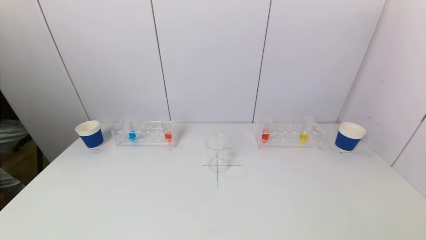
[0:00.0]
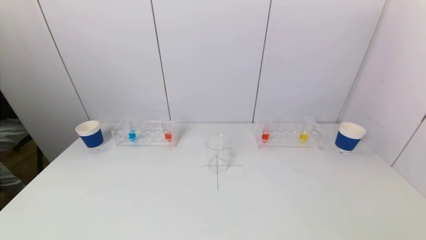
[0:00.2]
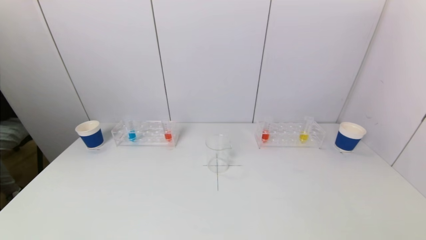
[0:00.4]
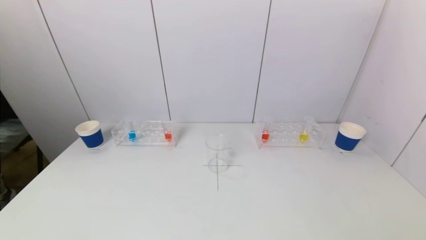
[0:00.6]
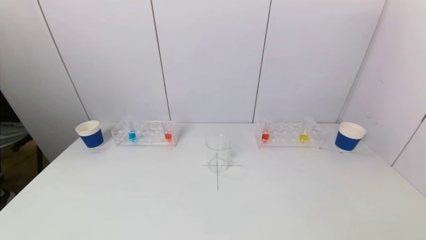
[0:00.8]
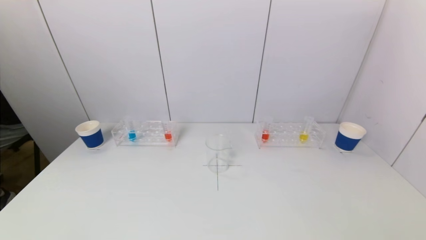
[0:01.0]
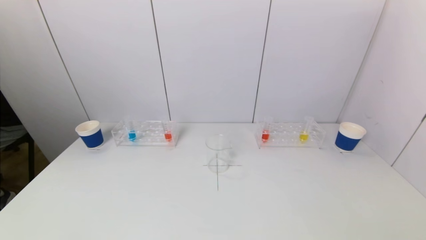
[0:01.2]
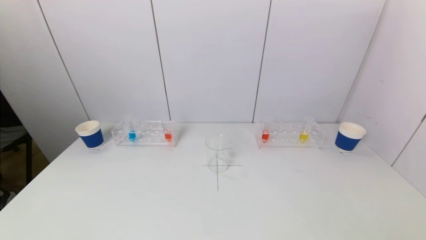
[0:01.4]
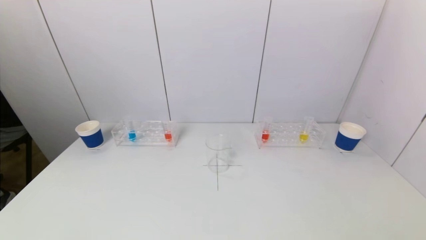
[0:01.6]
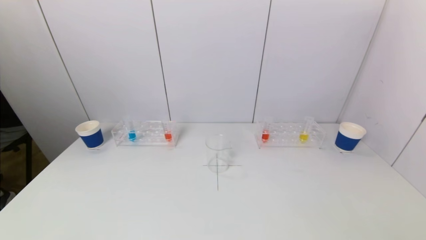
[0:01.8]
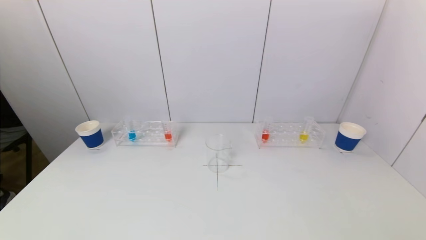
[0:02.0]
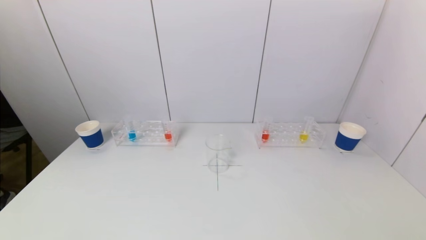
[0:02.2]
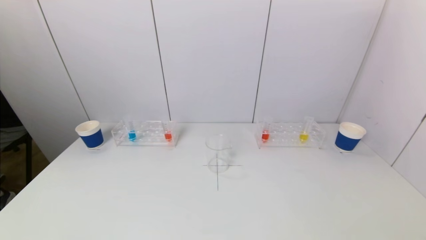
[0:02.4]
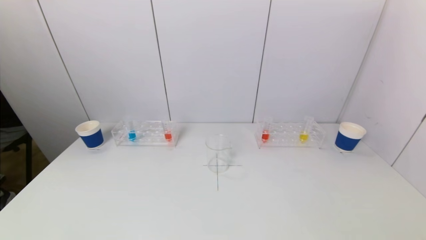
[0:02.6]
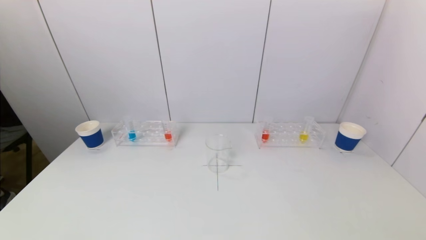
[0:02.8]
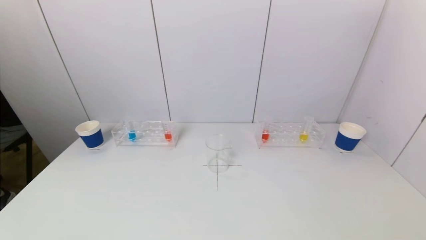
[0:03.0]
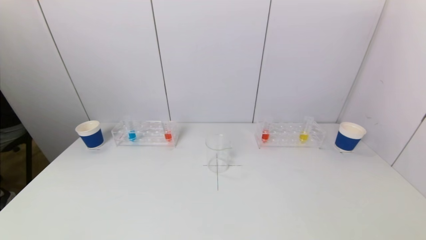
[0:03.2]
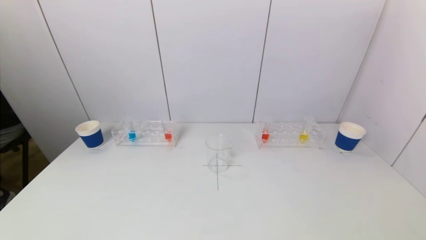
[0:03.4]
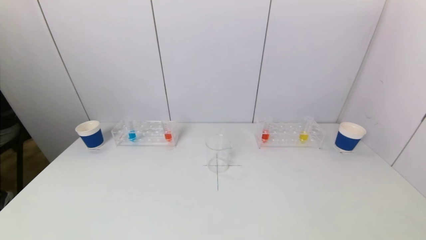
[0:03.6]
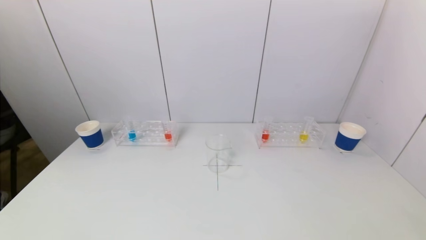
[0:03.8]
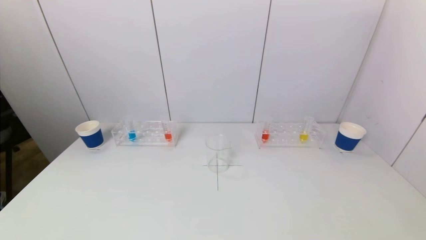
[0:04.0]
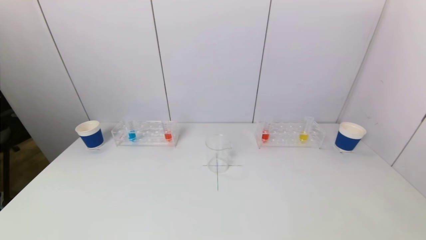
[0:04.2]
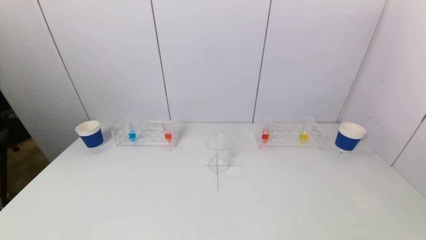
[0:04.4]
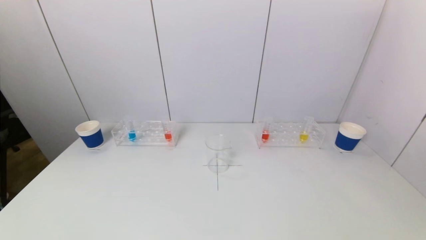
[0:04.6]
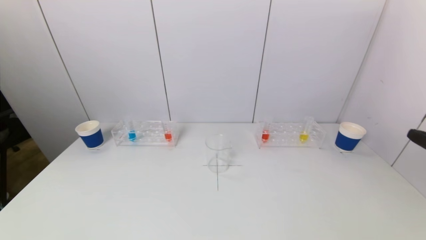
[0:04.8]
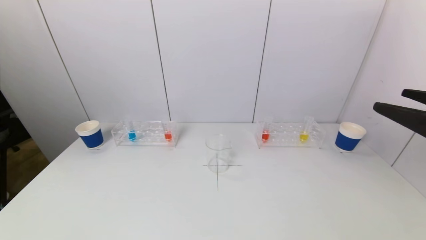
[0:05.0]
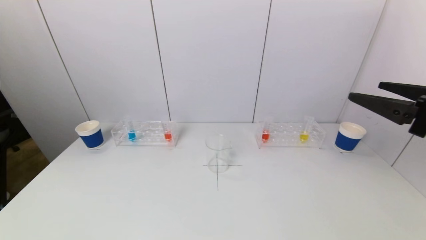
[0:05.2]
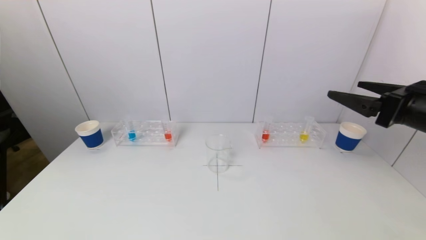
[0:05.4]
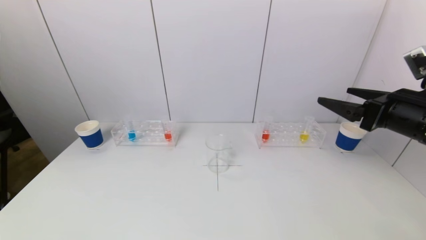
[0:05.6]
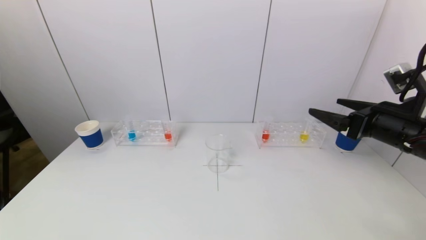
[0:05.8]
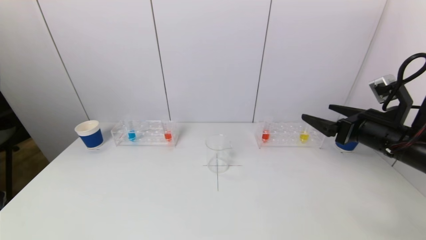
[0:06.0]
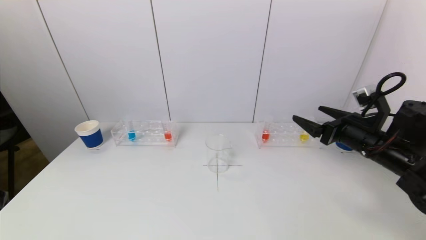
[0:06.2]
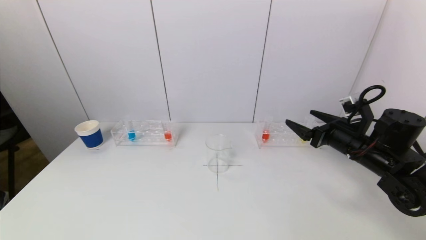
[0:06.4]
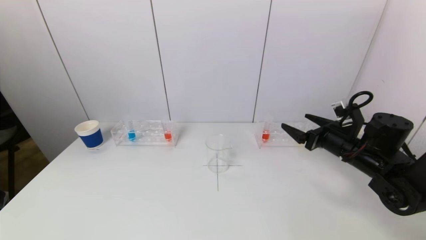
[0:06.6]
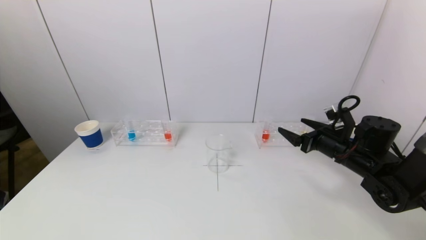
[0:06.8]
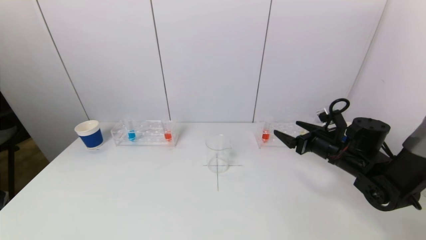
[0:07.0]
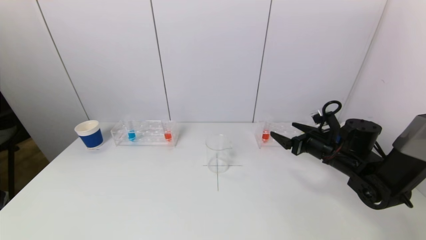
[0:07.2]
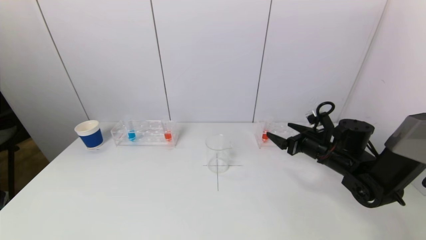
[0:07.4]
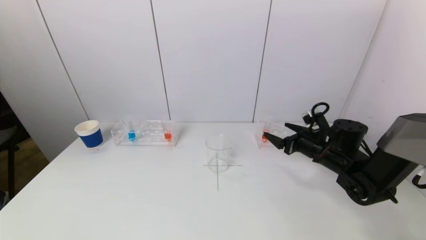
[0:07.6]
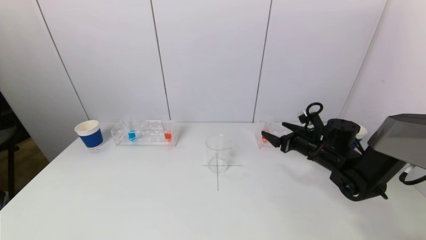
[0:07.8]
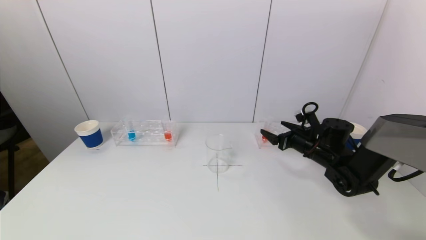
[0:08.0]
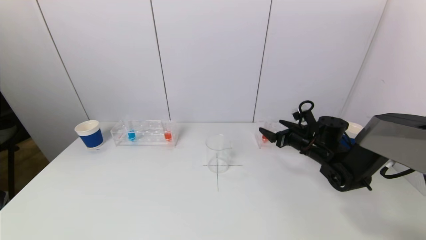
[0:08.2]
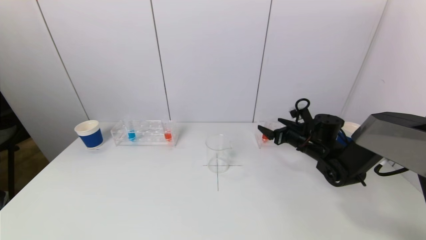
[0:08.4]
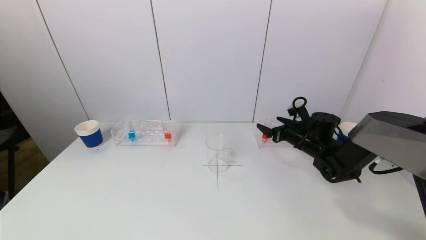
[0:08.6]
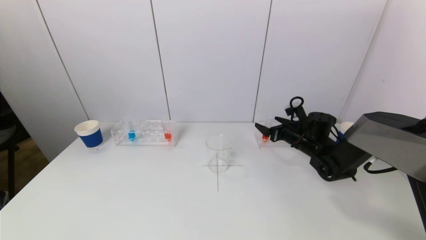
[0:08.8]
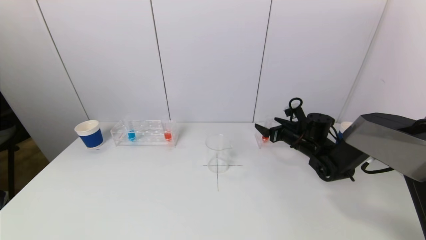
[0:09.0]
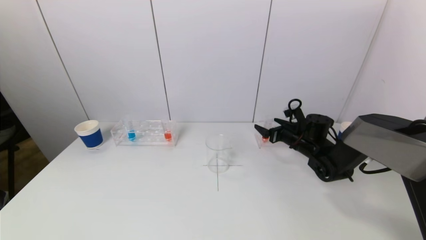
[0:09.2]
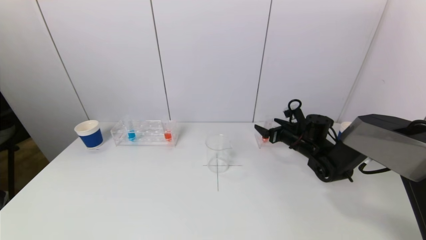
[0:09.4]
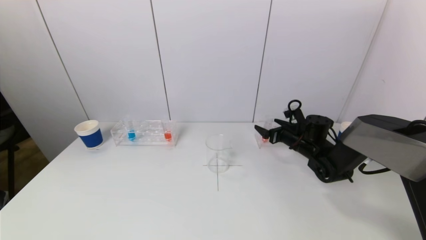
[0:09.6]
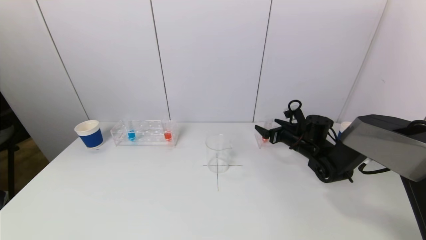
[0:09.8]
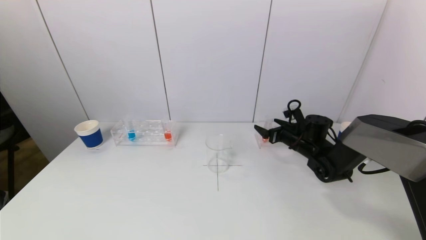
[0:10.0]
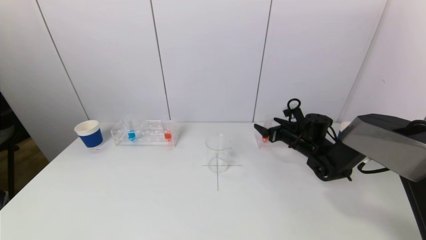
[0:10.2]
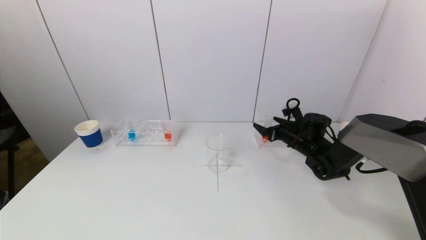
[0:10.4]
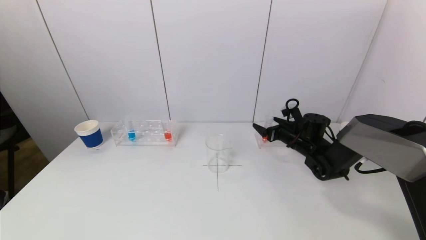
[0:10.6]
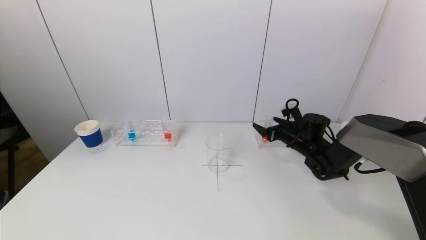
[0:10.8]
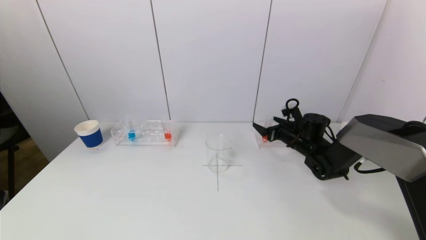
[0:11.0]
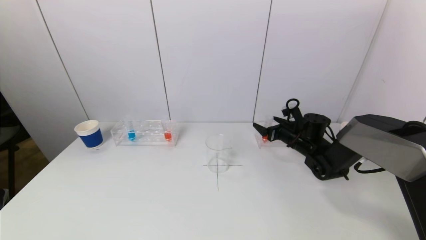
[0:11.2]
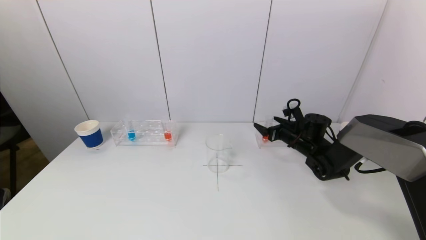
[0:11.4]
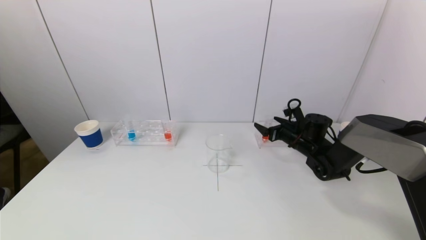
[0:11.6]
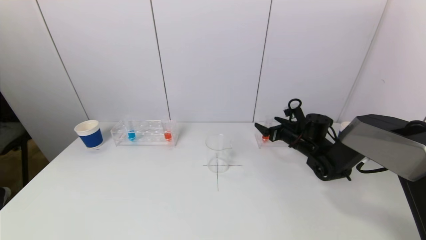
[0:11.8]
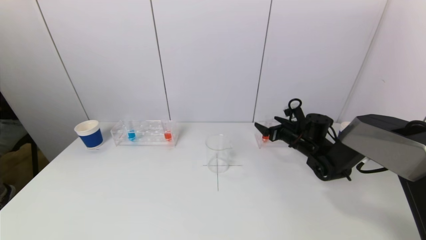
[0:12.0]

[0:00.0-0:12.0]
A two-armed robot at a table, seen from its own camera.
Task of the whole recording: pick up a test tube with pigment on left test tube rack and a test tube with pigment on right test tube rack by grippers and pour them into the beaker.
0:00.0 to 0:01.6: The two grippers keep their place.
0:04.4 to 0:06.0: The right gripper goes about 25 cm forward.
0:06.0 to 0:07.6: The right gripper shifts approximately 15 cm downward and forward.
0:07.6 to 0:09.0: The right gripper travels forward by some 5 cm.
0:09.0 to 0:12.0: Both grippers stay about where they are.

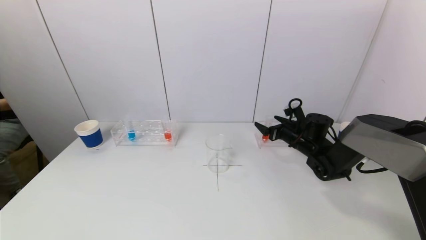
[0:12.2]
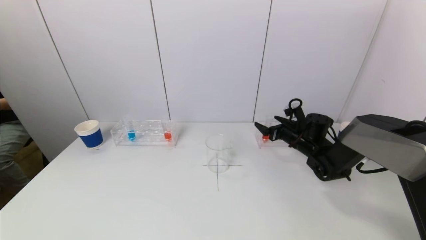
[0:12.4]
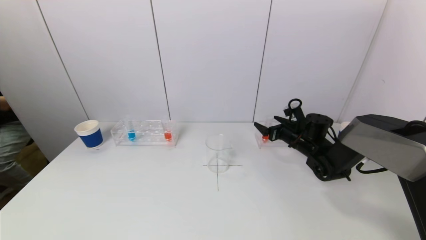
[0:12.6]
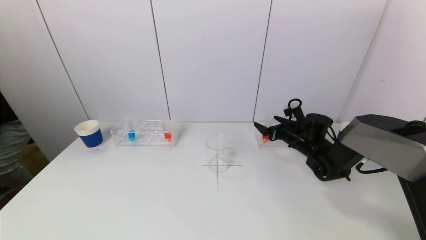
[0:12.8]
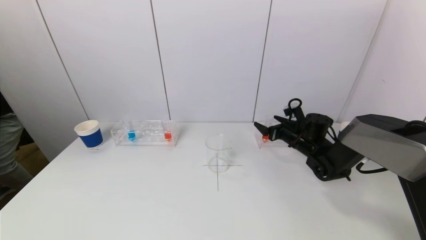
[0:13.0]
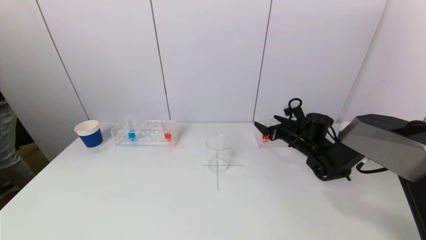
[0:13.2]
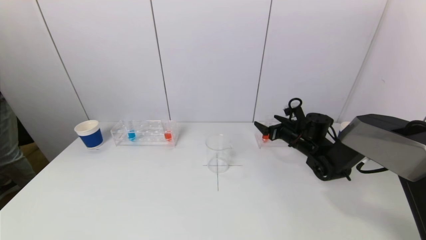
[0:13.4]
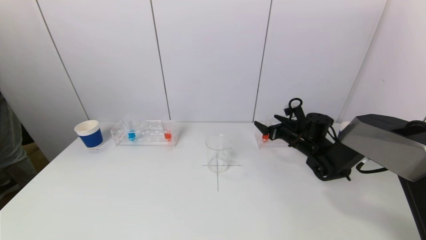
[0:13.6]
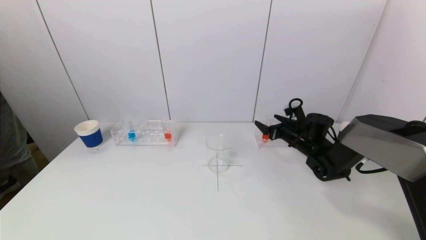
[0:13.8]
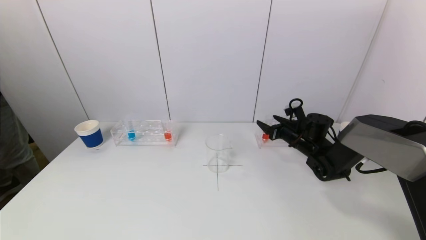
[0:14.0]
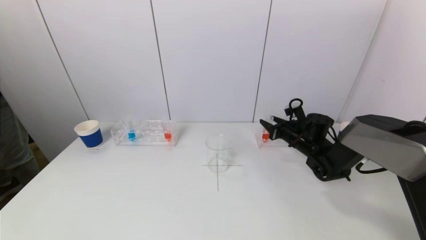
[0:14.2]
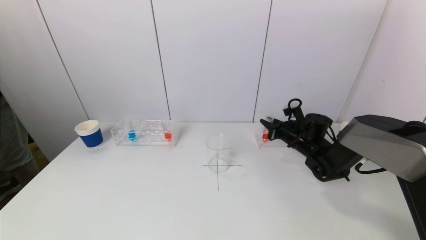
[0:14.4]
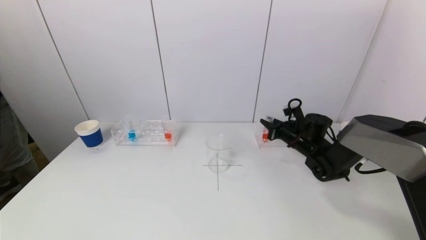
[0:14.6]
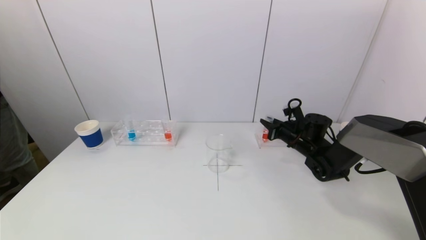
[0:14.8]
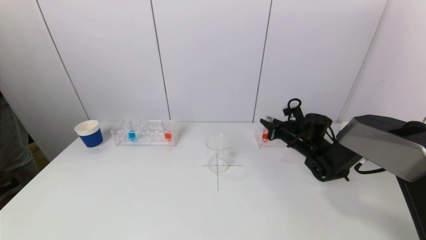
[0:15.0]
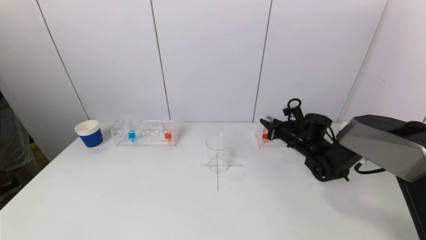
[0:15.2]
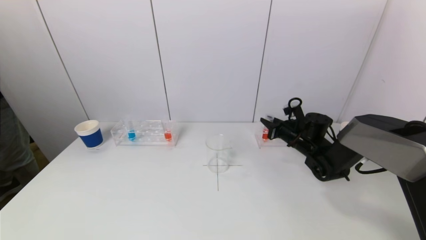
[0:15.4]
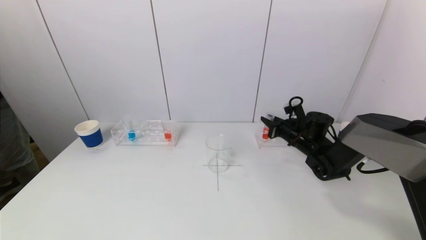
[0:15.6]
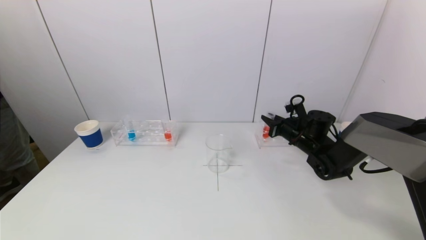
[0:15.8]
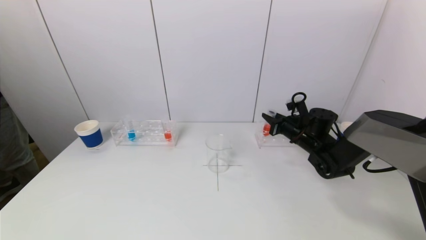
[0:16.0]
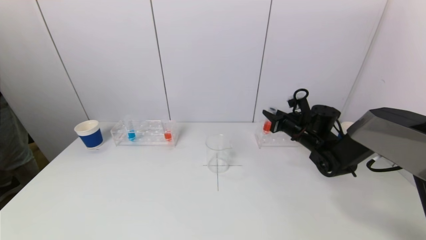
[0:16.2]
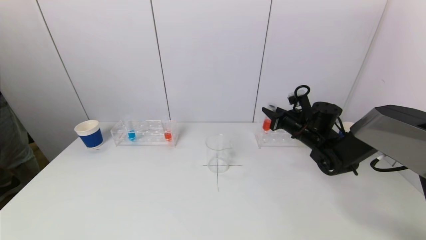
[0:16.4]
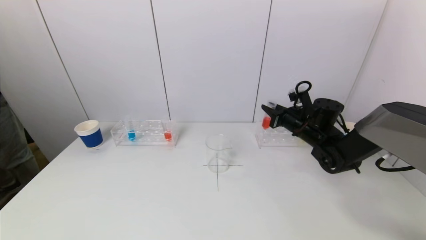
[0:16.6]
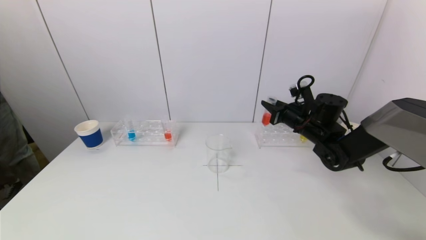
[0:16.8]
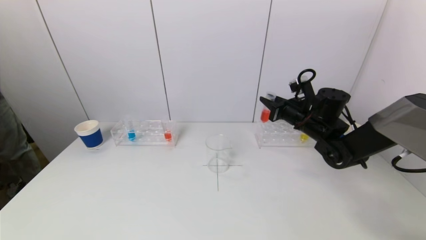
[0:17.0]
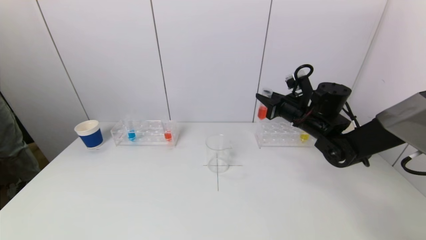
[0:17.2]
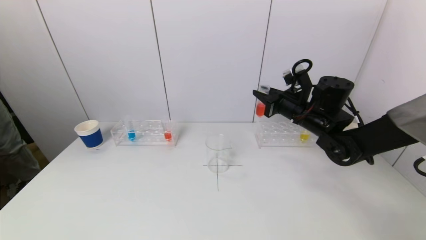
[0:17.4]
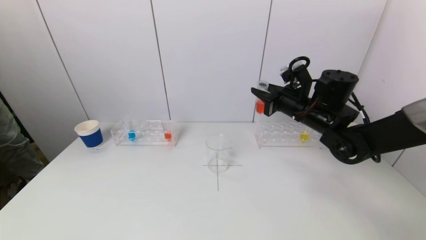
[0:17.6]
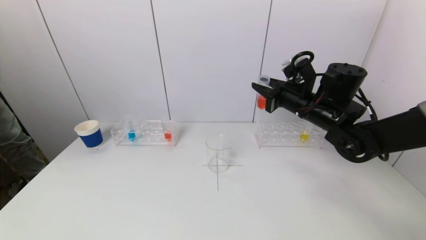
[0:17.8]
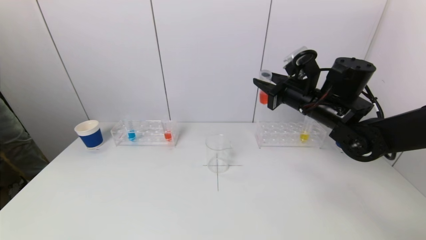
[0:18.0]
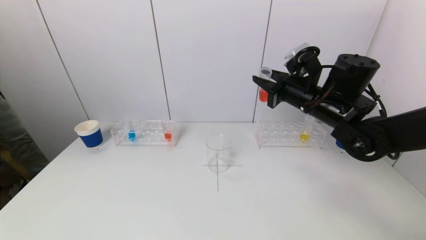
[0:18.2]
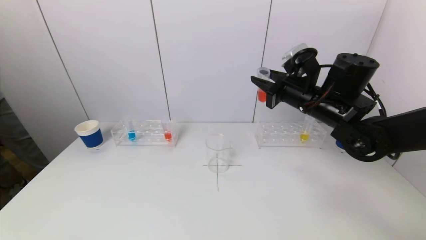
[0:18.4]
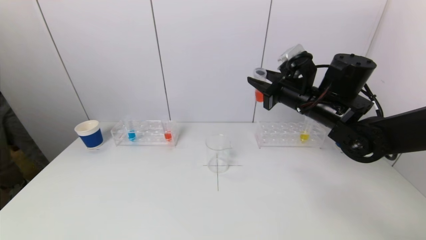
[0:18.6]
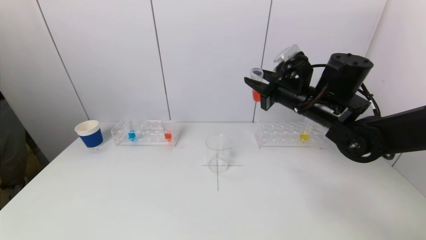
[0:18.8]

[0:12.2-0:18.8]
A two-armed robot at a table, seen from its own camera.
Task of the whole recording: pick up a test tube with pigment on left test tube rack and a test tube with pigment on right test tube rack by grippers and pour them into the beaker.
Step, 0:12.2 to 0:14.4: Grasp the red reagent with the right gripper.
0:12.2 to 0:13.8: Neither gripper changes place.
0:13.8 to 0:15.4: The right gripper closes.
0:15.4 to 0:17.2: The right gripper shifts some 10 cm upward.
0:17.2 to 0:18.8: The right gripper heads upward, covering some 5 cm.
